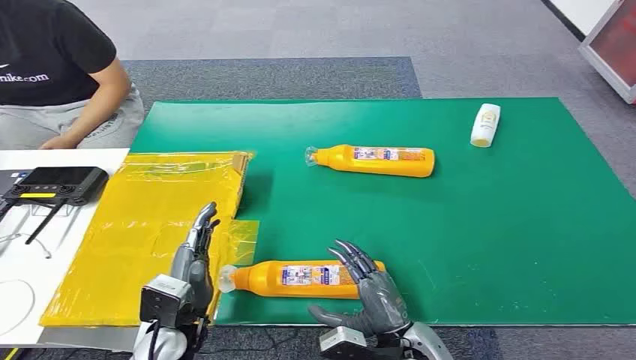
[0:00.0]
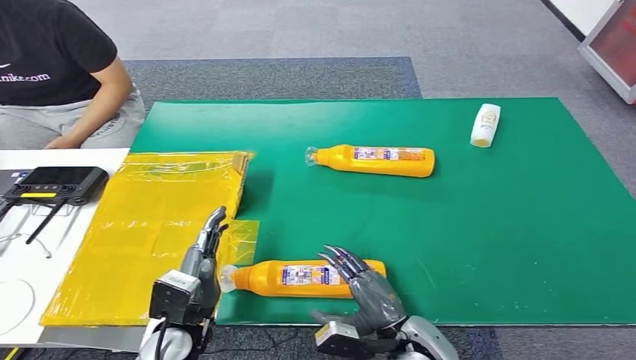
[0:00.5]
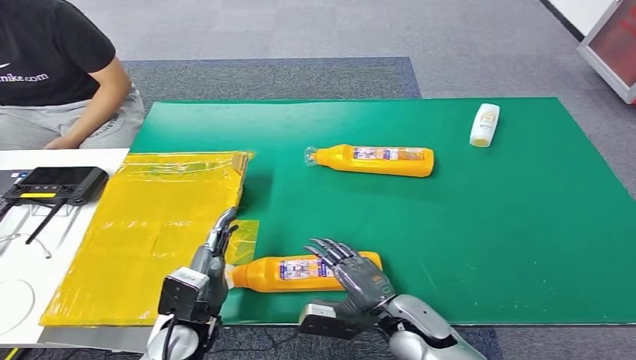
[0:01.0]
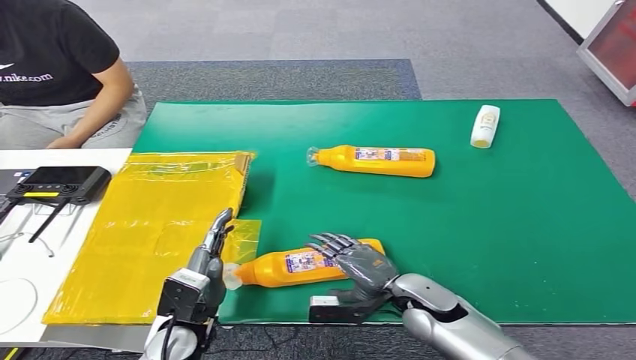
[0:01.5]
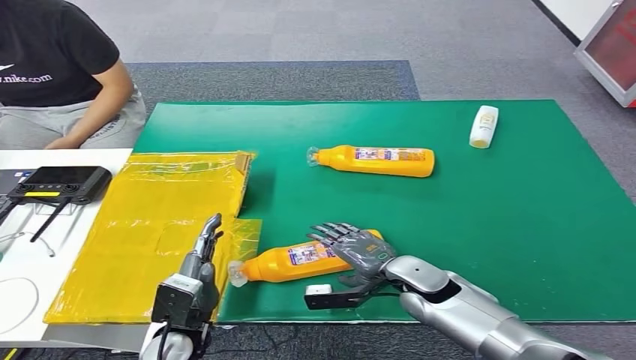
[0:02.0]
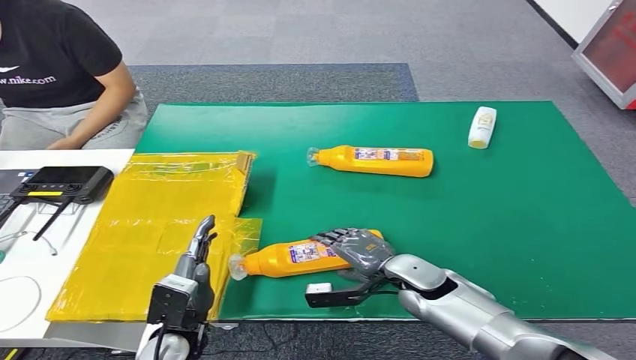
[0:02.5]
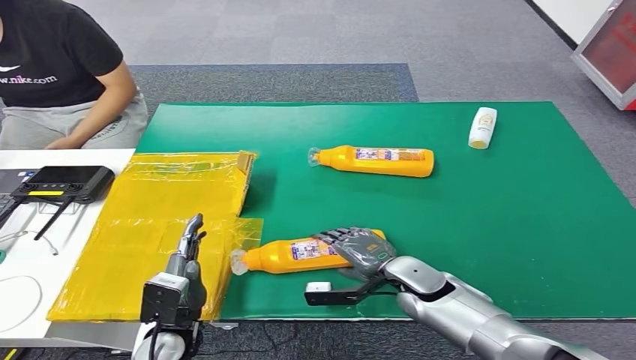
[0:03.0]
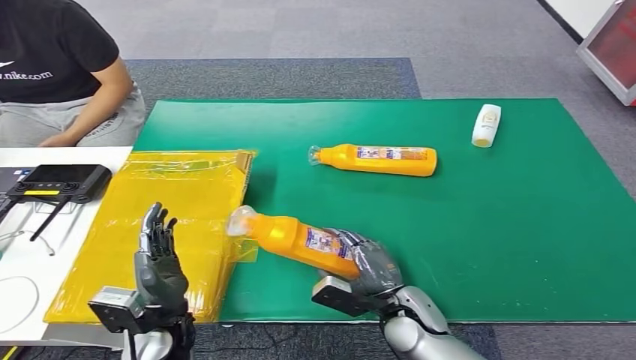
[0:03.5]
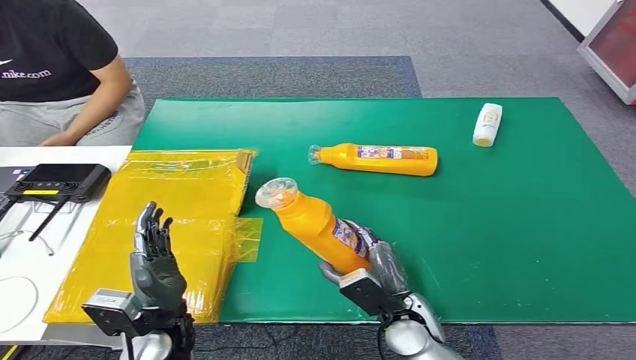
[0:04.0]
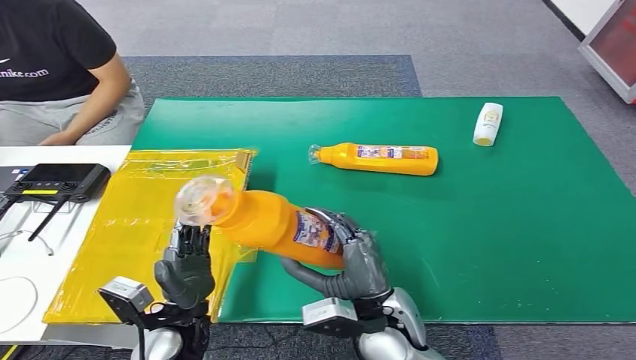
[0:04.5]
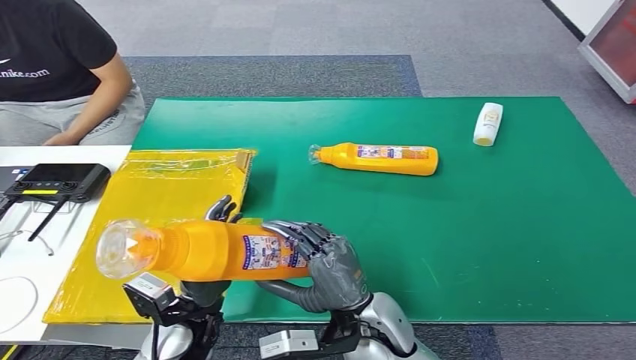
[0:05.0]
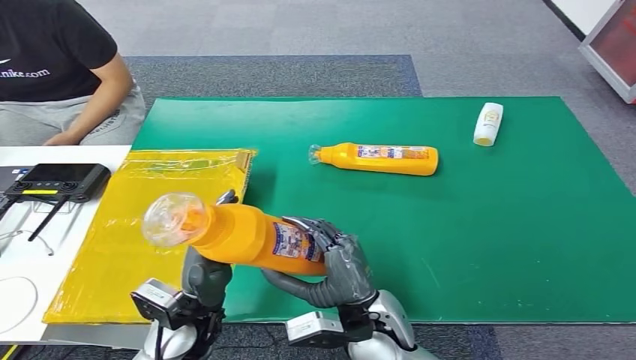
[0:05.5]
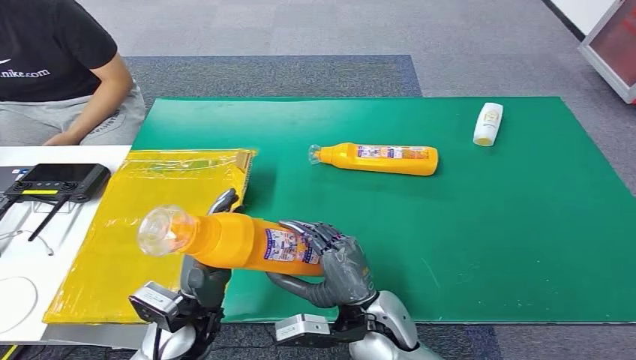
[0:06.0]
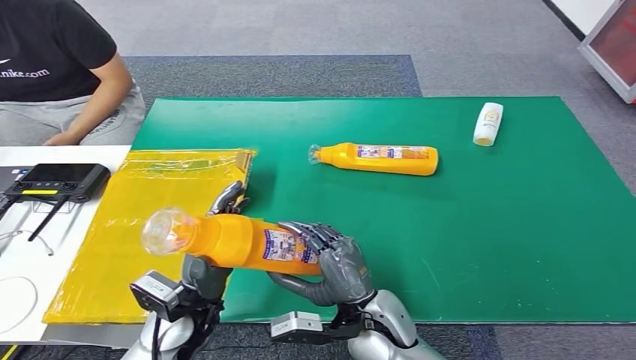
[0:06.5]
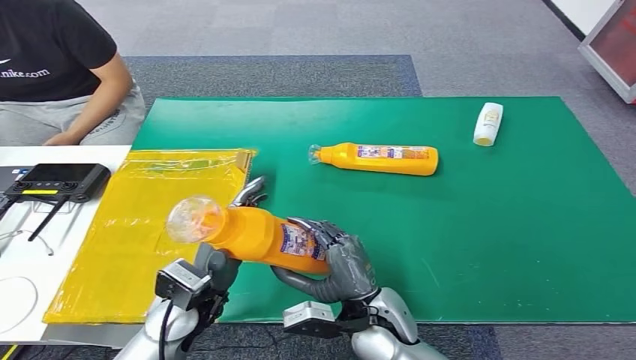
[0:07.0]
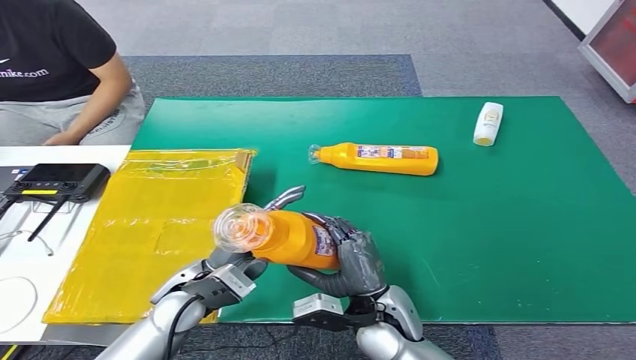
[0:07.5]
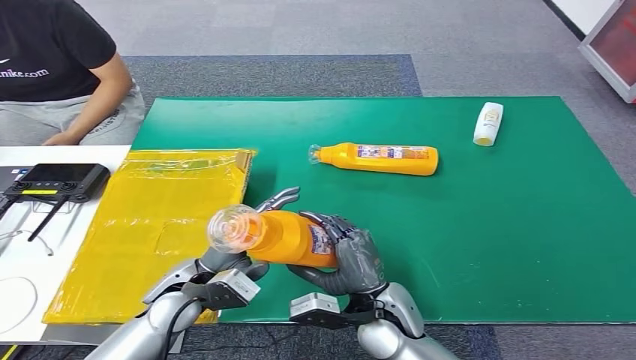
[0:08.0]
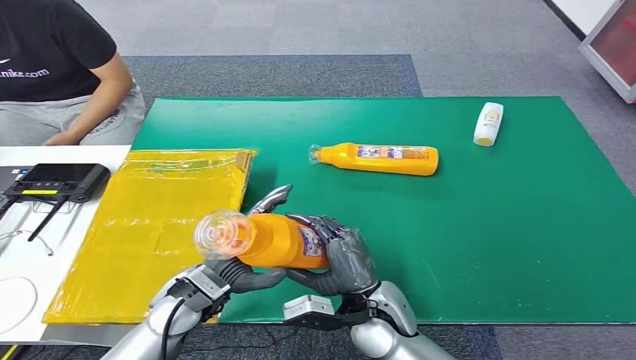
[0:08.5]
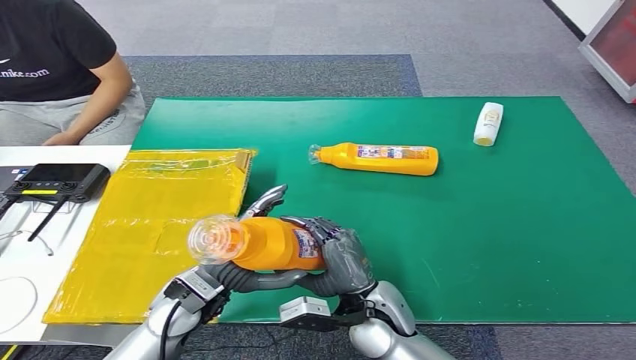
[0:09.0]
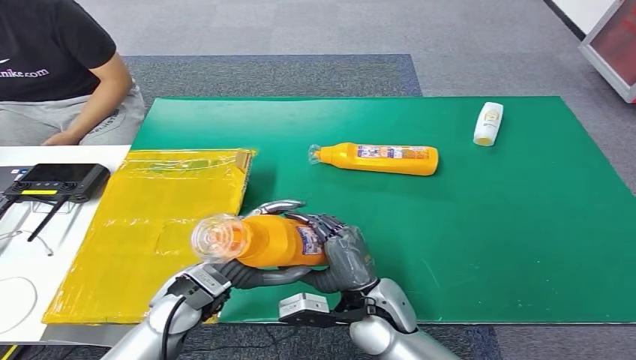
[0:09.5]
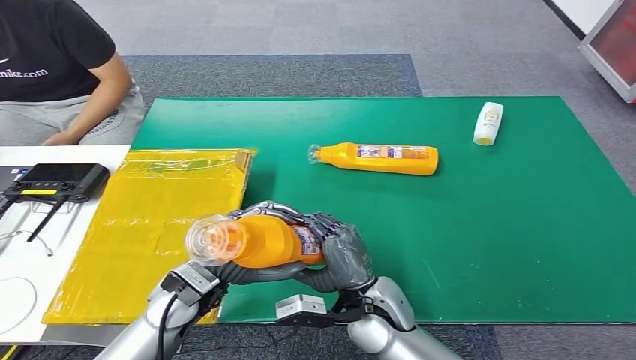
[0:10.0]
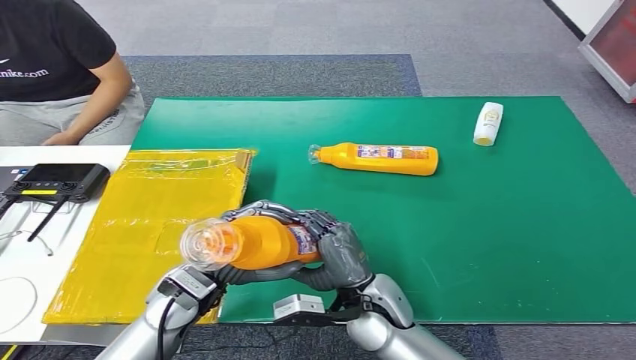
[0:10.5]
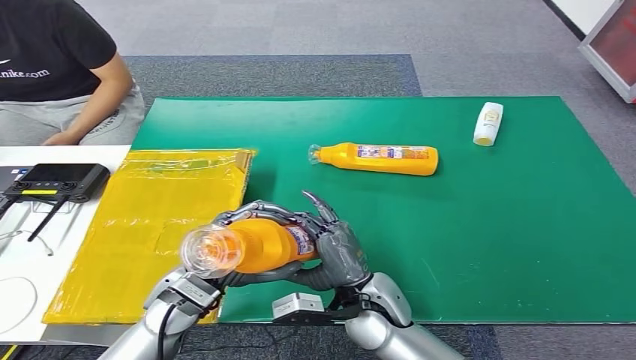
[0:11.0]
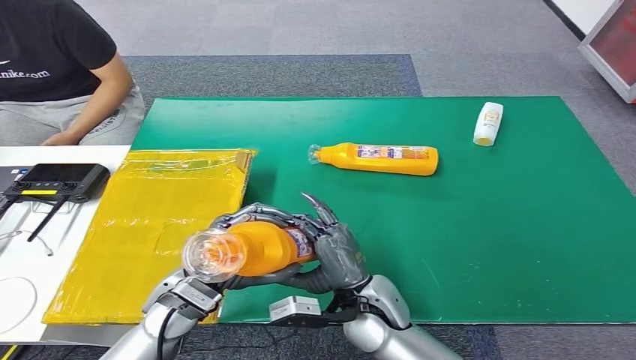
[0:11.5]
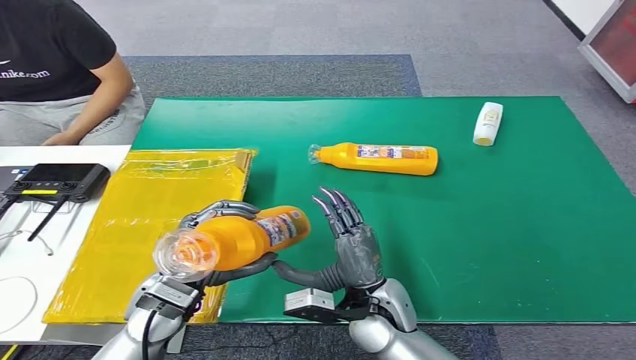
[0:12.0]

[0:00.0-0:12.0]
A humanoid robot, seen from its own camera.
Step, 0:00.0 to 0:04.5: Pick up the bottle from the table.
0:04.0 to 0:06.0: The right hand is displaced upward and to the left by roughly 10 cm.
0:08.0 to 0:10.0: The hands make only small movements.
0:10.0 to 0:12.0: The hands move only a little.

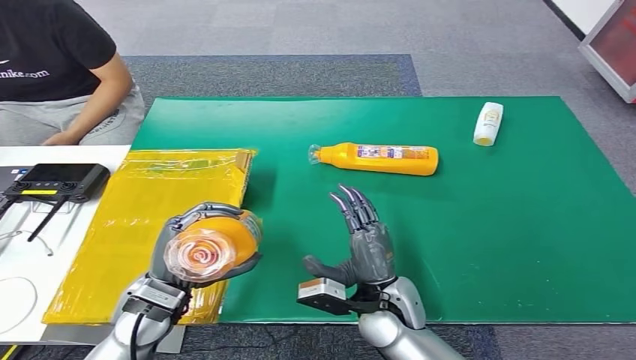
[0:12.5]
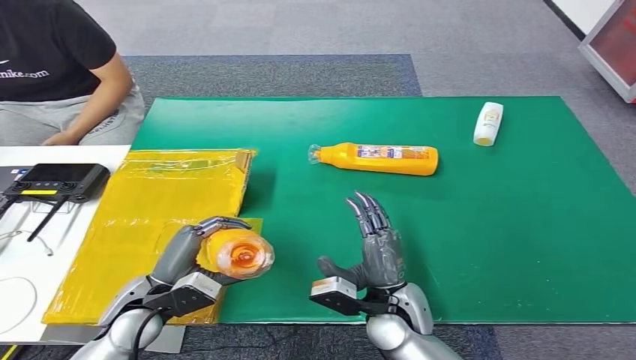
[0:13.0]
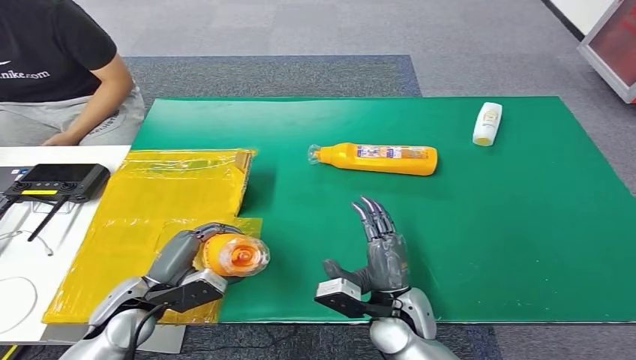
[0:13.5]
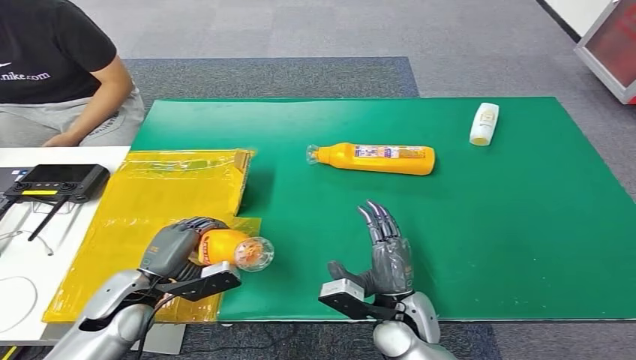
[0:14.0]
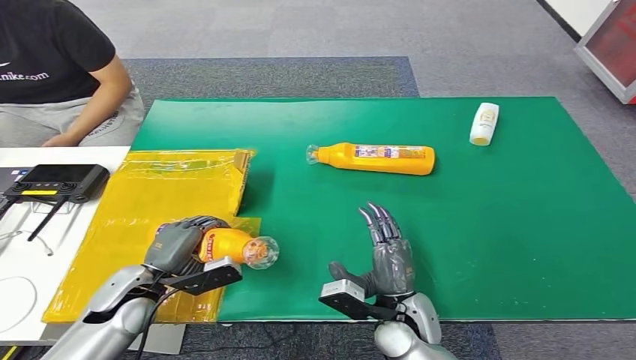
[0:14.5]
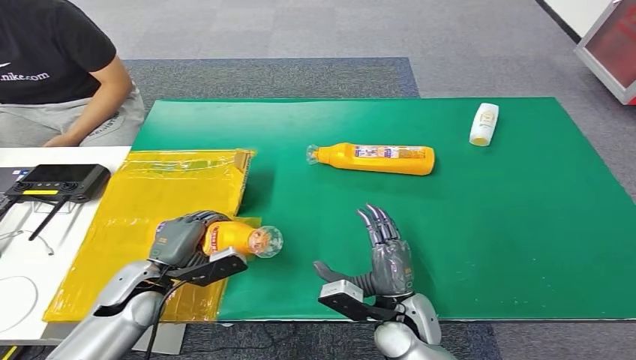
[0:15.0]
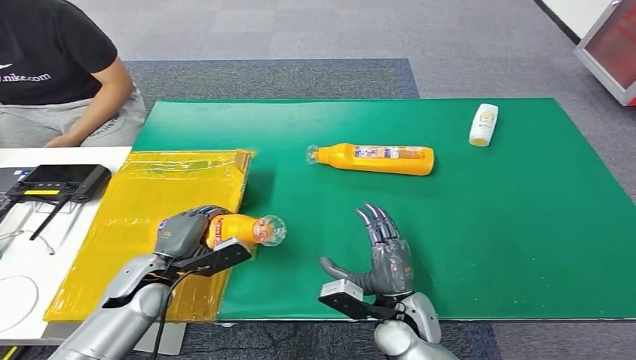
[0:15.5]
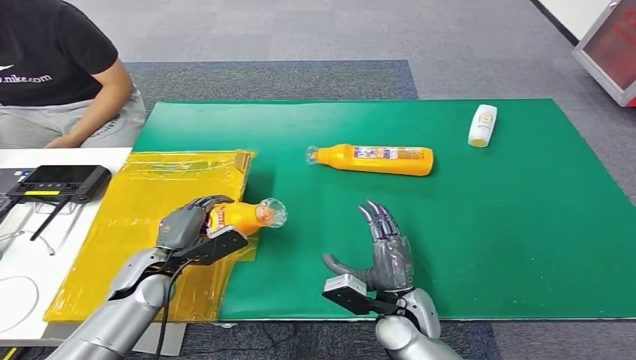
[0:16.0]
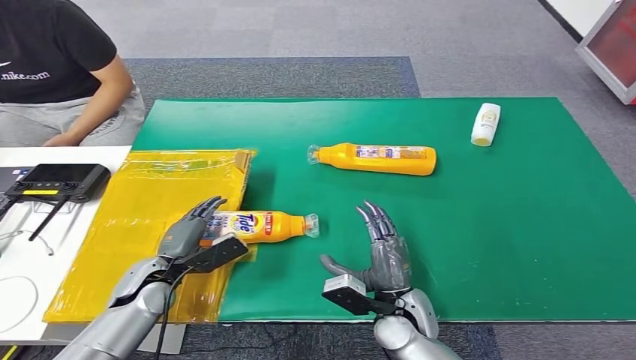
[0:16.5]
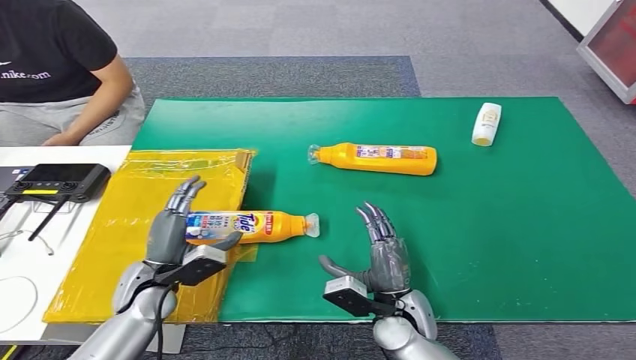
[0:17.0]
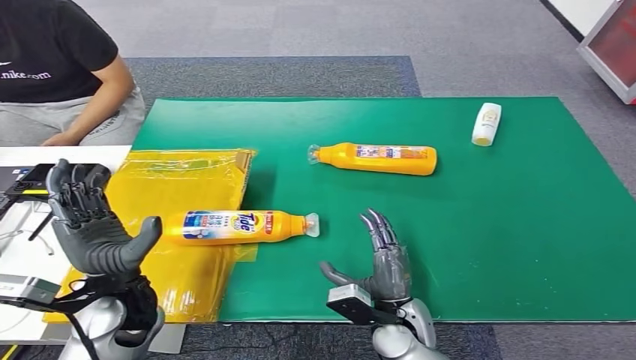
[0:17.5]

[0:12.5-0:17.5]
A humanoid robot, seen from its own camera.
Step, 0:12.5 to 0:17.0: Turn the bottle to the front side.
0:12.5 to 0:15.0: The left hand is displaced downward and to the left by some 10 cm. Meanwhile the right hand shifts by approximately 5 cm.
0:15.0 to 0:17.5: The left hand travels upward by some 10 cm.

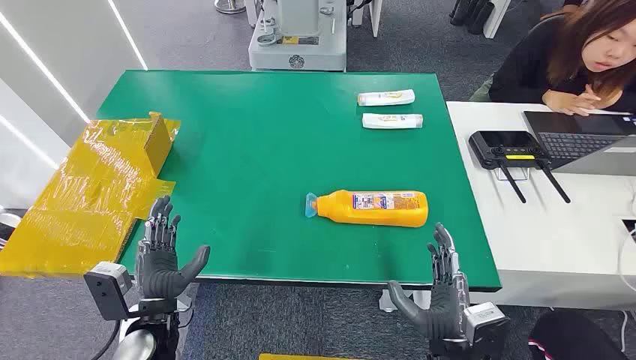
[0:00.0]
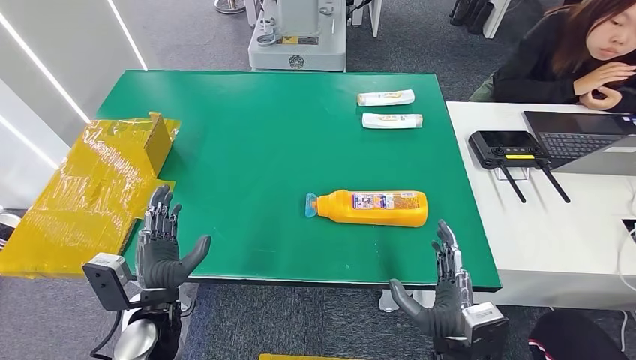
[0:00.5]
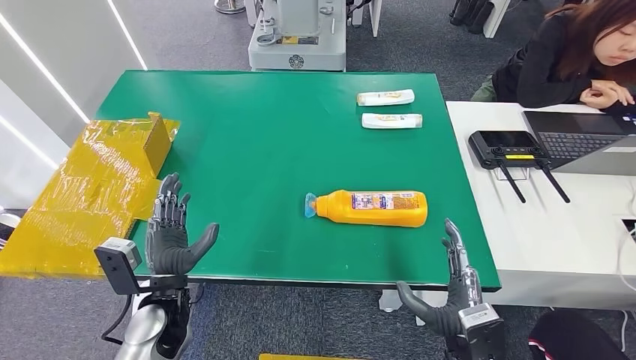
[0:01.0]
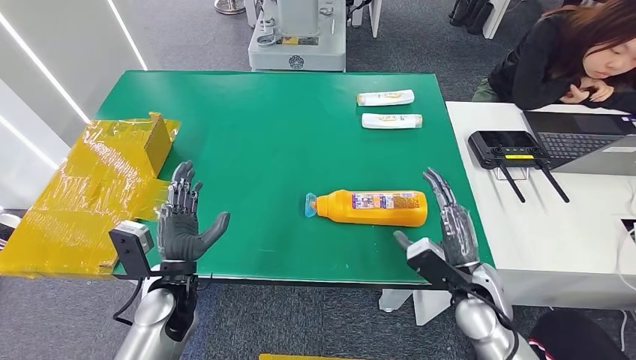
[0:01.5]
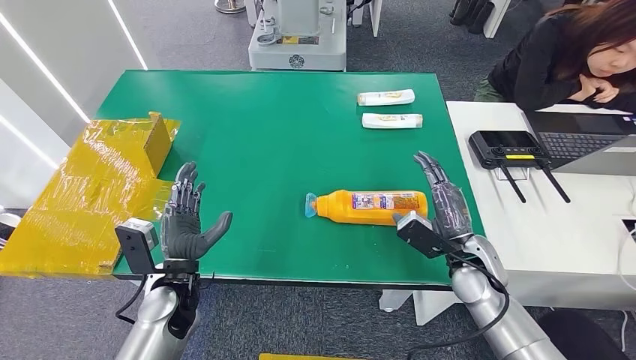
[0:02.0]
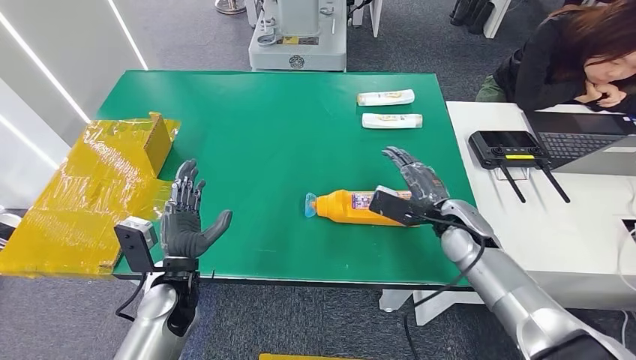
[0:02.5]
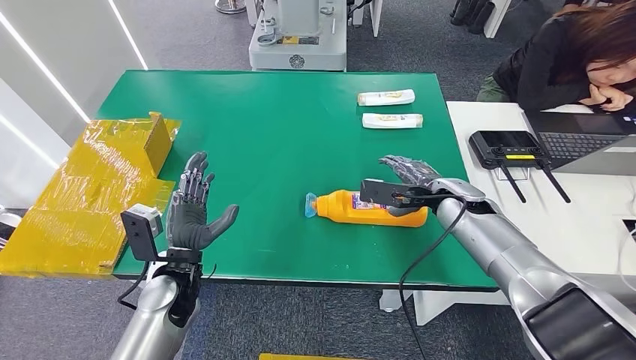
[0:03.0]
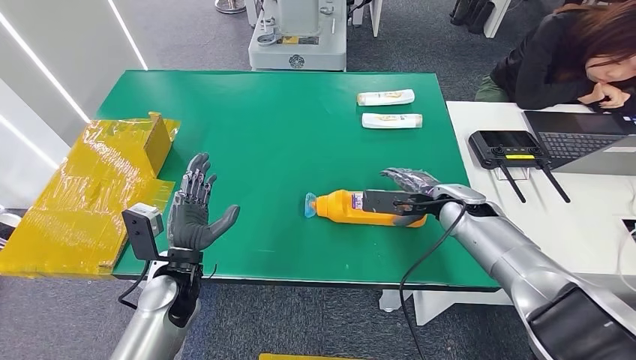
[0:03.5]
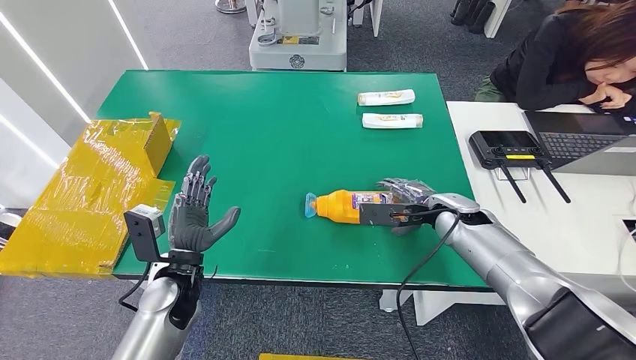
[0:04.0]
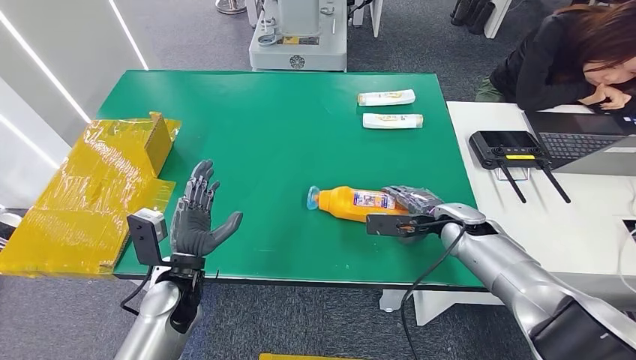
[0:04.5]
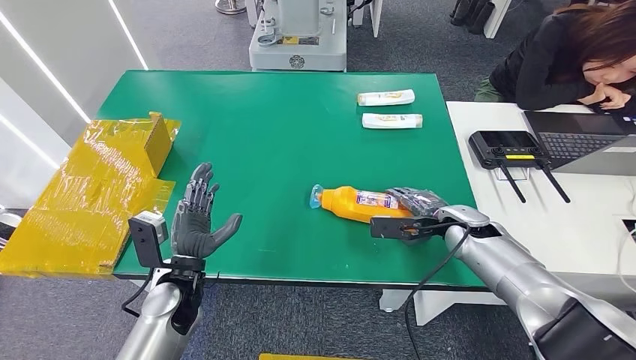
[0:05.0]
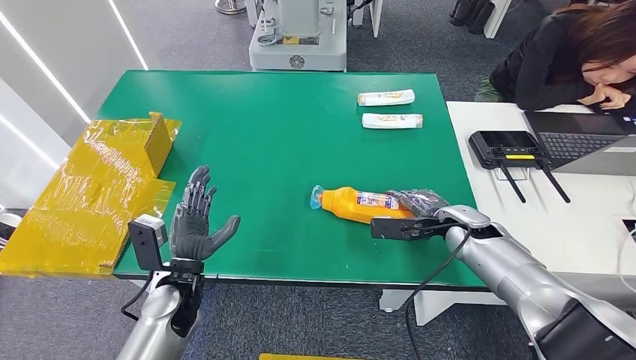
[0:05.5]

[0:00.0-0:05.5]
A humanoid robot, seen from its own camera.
0:02.0 to 0:03.5: The right hand moves forward and upward, approximately 10 cm.
0:03.5 to 0:05.5: The right hand shifts by some 5 cm.
